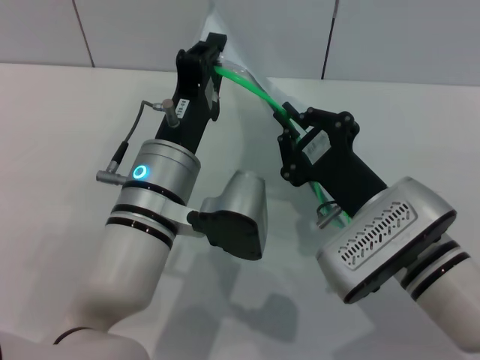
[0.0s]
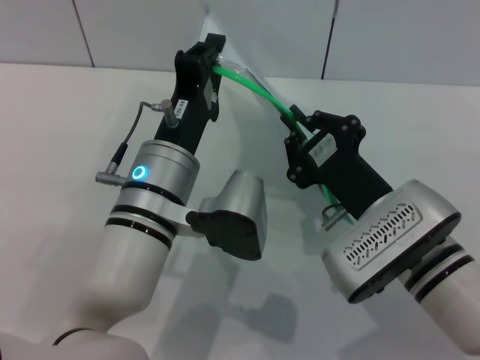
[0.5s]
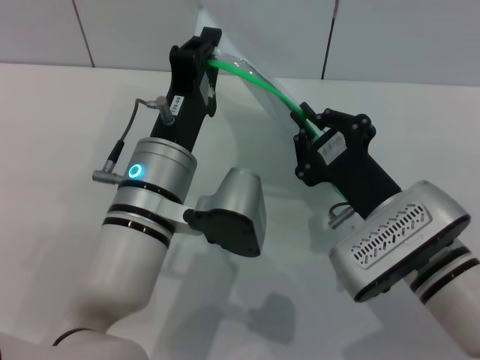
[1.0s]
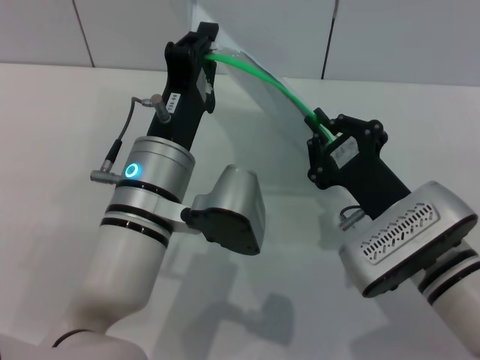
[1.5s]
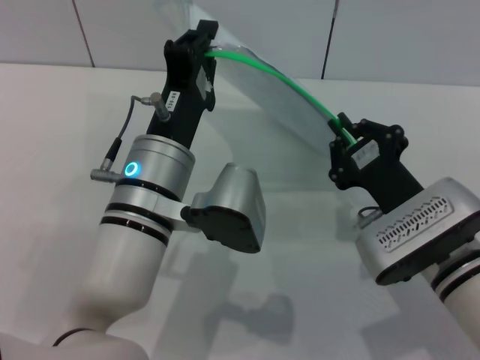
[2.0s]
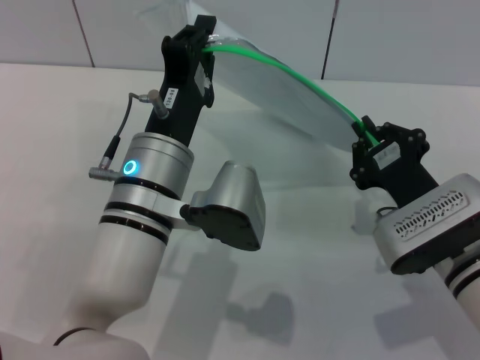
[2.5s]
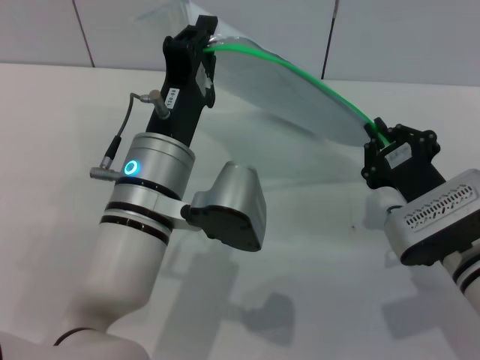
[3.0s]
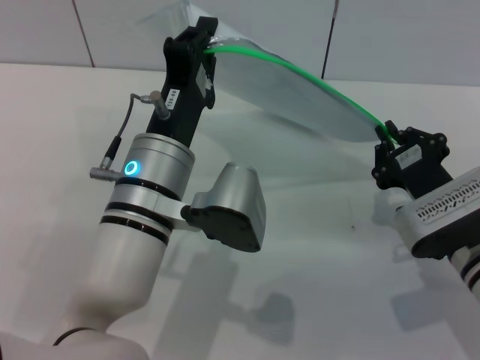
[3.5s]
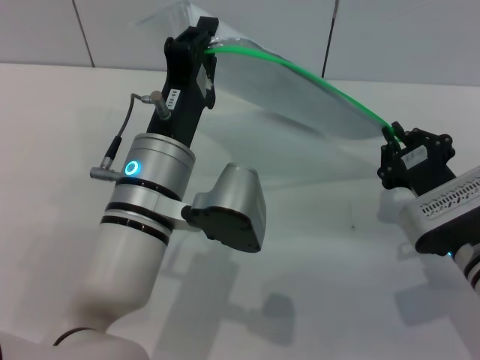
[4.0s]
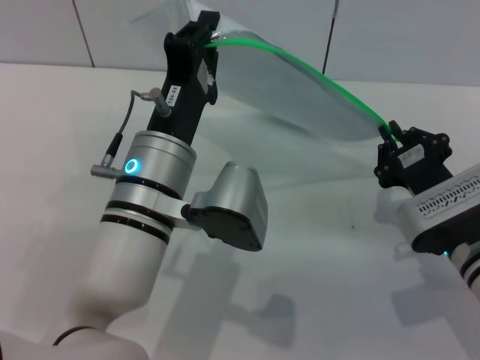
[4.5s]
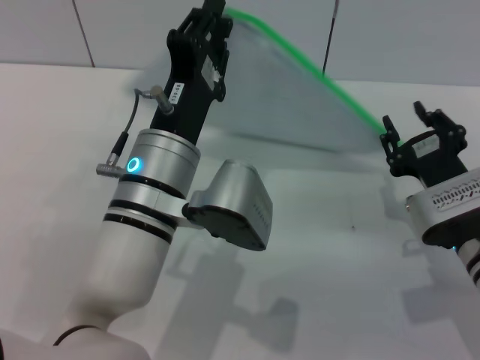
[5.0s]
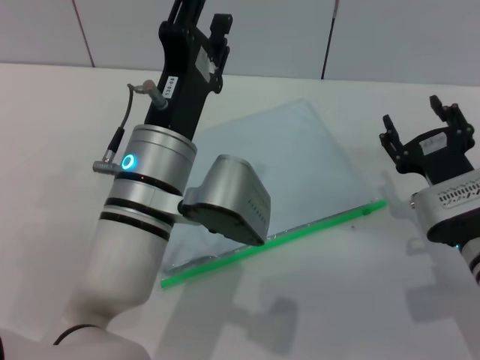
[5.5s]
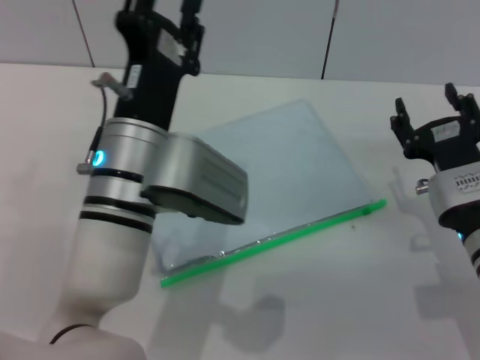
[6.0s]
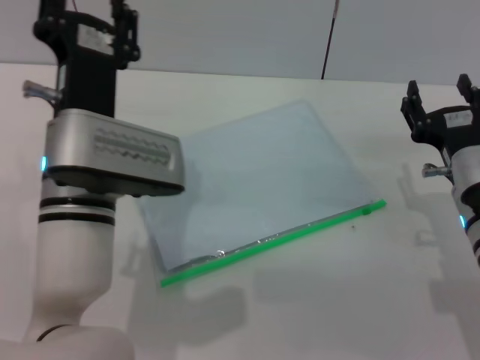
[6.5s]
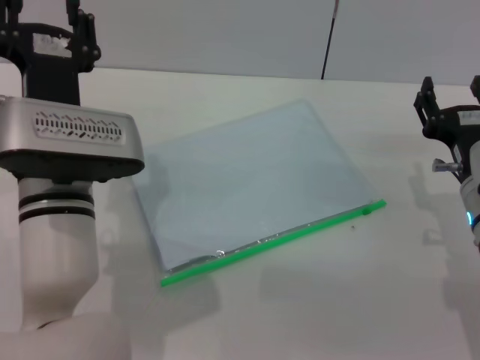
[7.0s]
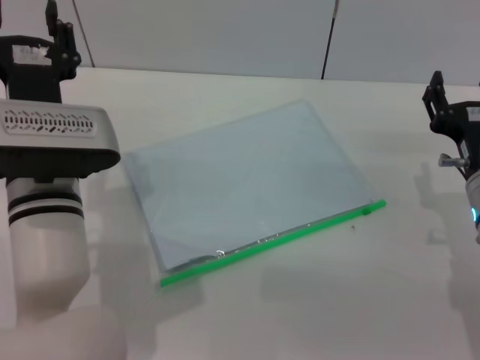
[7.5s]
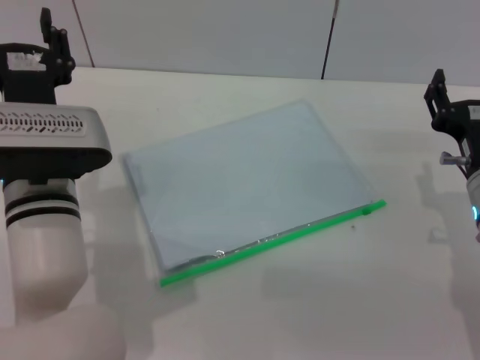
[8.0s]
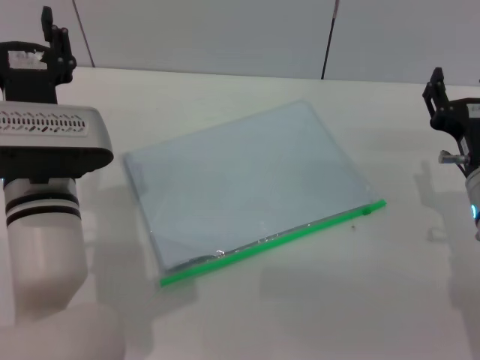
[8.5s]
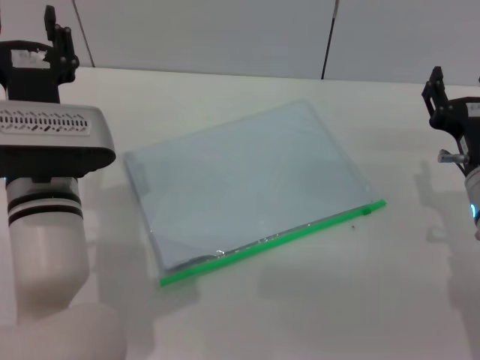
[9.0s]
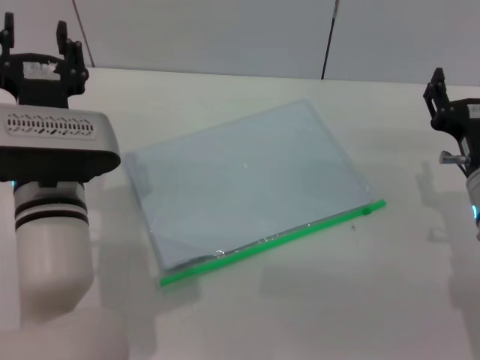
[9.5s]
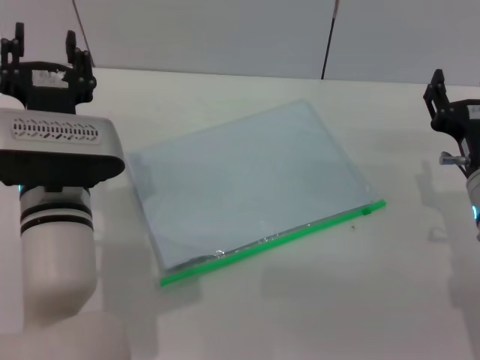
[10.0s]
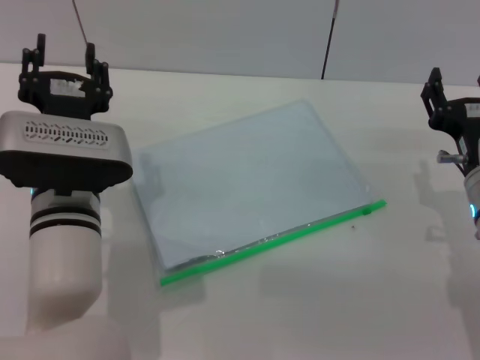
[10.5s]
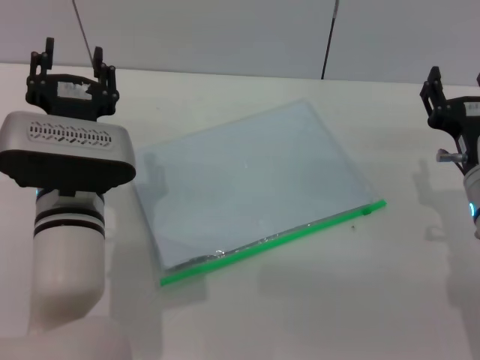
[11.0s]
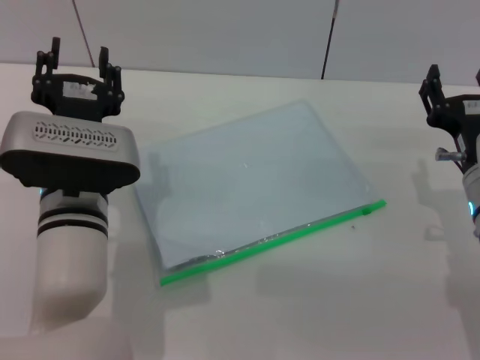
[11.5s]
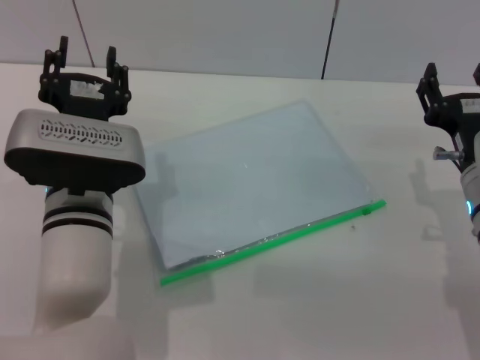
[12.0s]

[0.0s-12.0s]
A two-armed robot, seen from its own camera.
Step, 0.0s to 5.0s: Pulling up the zipper on the transparent plastic bag with the right gripper to close it.
Step, 5.5s to 7.0s: Place the transparent plastic bag.
2.0s to 4.0s: The right gripper moves approximately 5 cm.
4.0s to 6.0s: The left gripper opens up; the right gripper opens.
6.0s to 8.0s: The left gripper moves to the left, some 5 cm.
8.0s to 12.0s: The grippers stay close to where they were, moving slightly.
